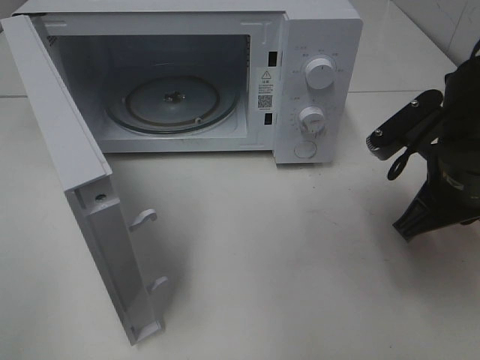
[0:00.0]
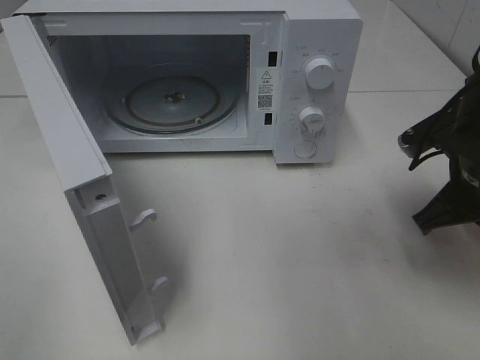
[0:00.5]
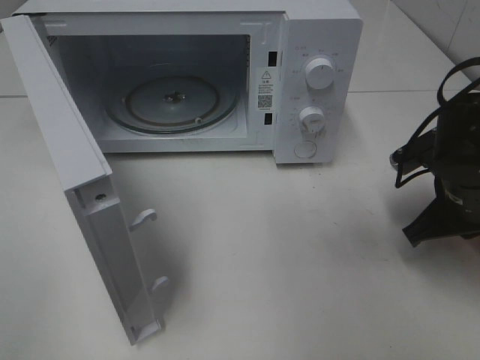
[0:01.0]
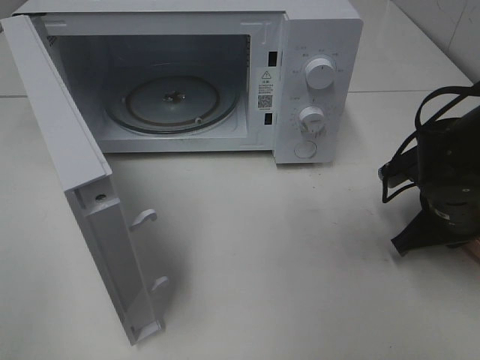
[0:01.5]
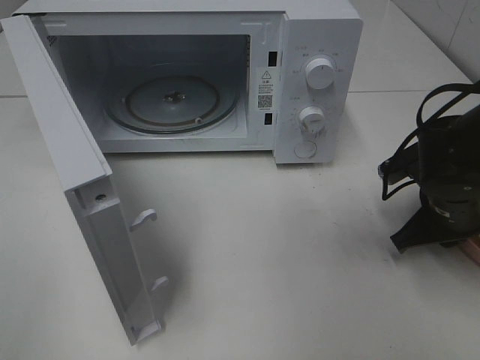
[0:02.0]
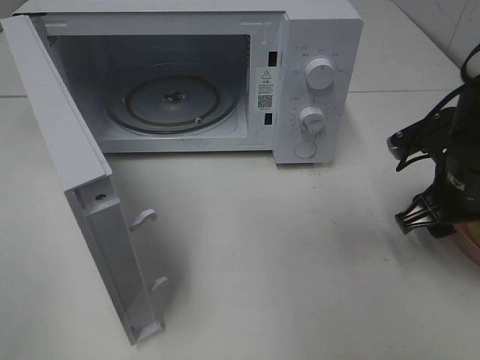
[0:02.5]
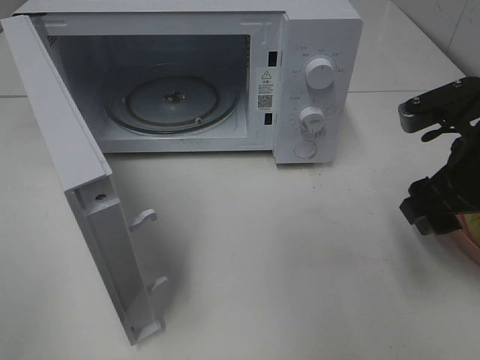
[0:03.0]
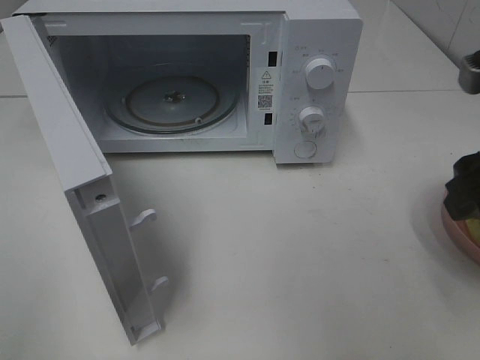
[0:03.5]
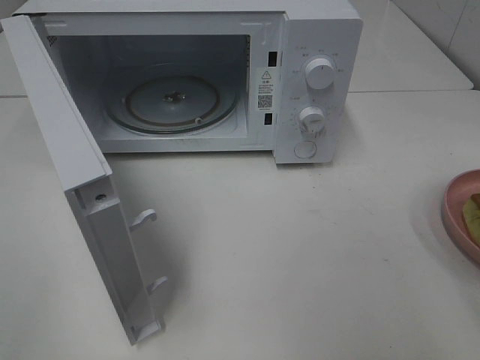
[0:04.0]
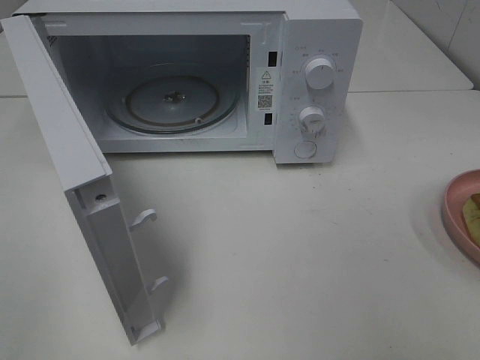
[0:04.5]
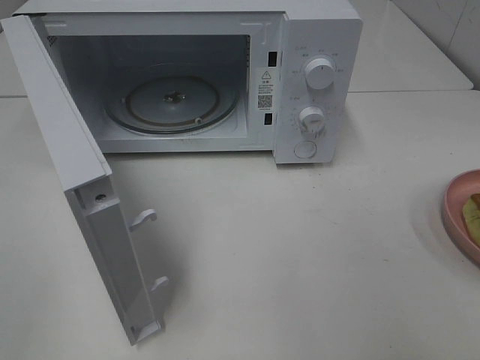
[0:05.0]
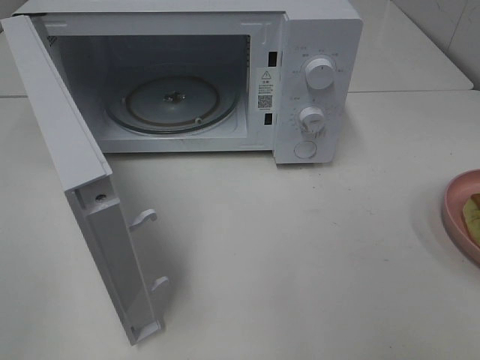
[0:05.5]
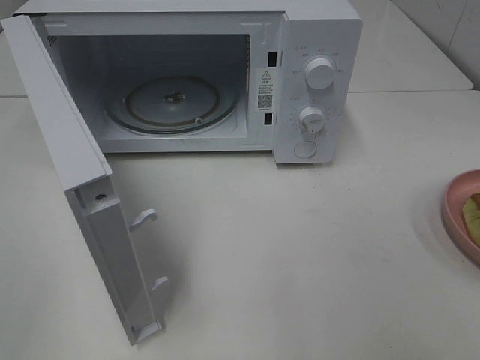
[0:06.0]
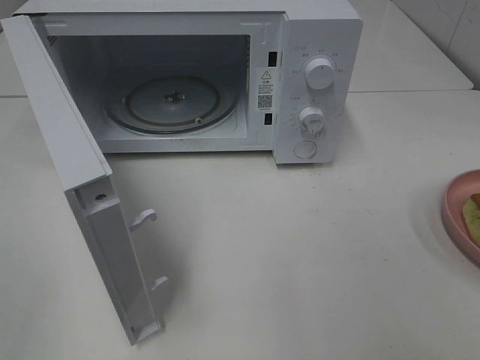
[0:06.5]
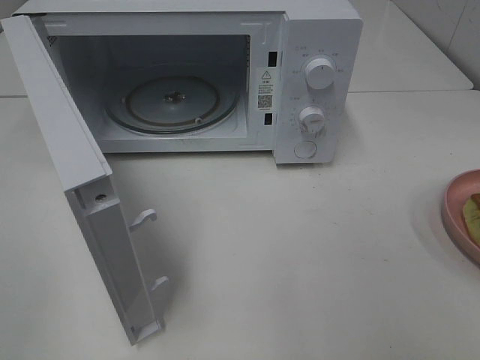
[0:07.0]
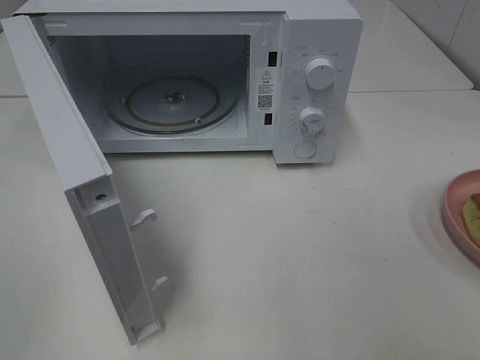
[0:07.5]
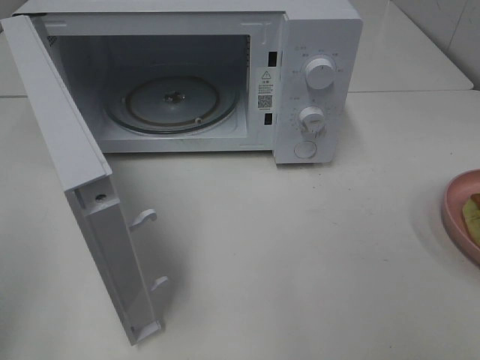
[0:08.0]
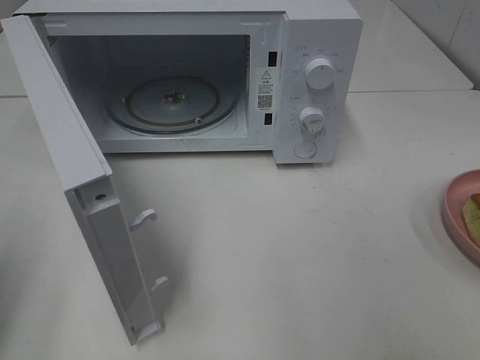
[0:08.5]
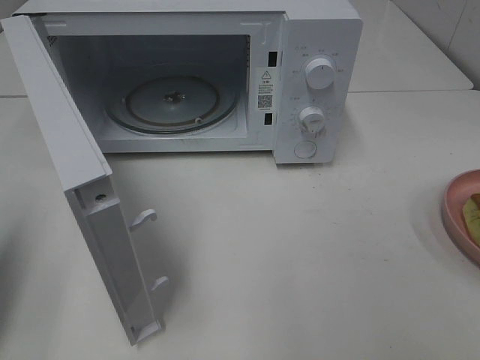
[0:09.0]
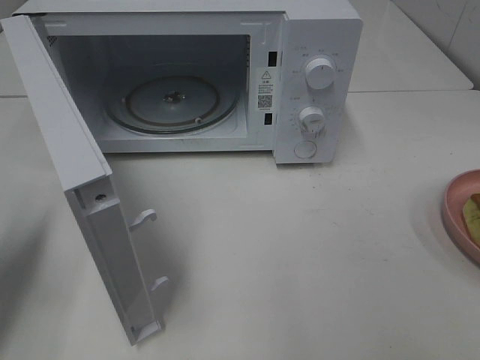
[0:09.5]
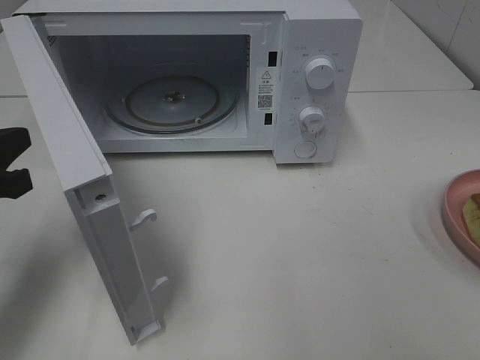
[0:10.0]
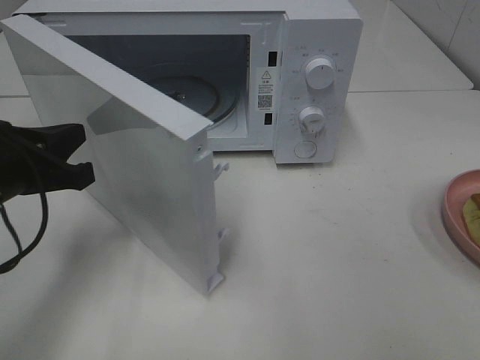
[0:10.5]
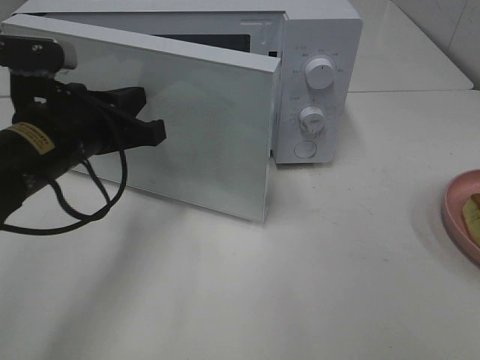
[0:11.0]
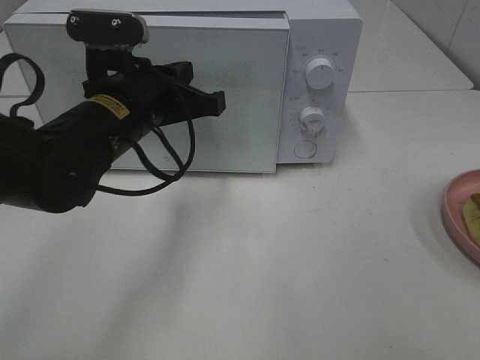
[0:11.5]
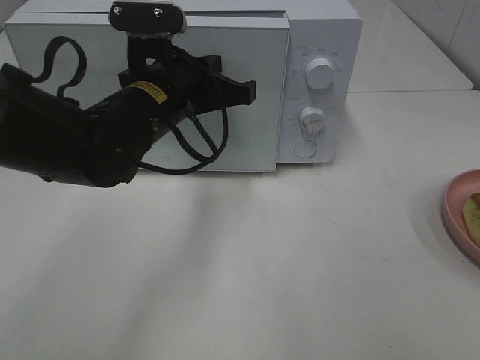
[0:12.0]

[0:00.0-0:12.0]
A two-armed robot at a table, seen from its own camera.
Task of the whole recording: Heat Sandwich.
Step, 0:00.0 to 0:03.5: Right hand: place the plate on the table.
0:00.0 to 0:02.0: The right gripper heads downward, covering some 10 cm.
0:02.0 to 0:04.0: The right gripper is displaced upward and backward by about 25 cm, and opens its fingers.
0:08.0 to 0:10.0: The left gripper shifts some 20 cm forward and downward.
0:10.0 to 0:12.0: The left gripper is displaced to the right and forward by approximately 20 cm.

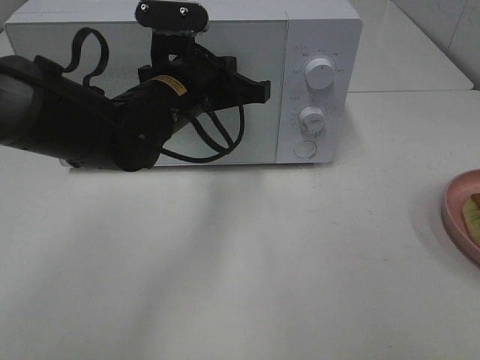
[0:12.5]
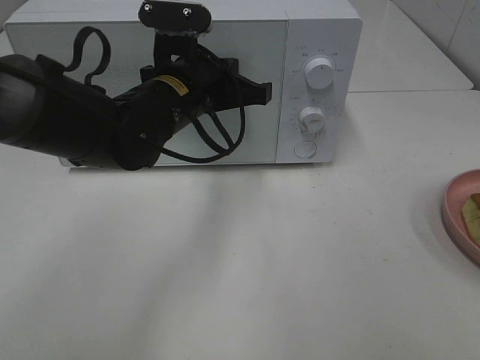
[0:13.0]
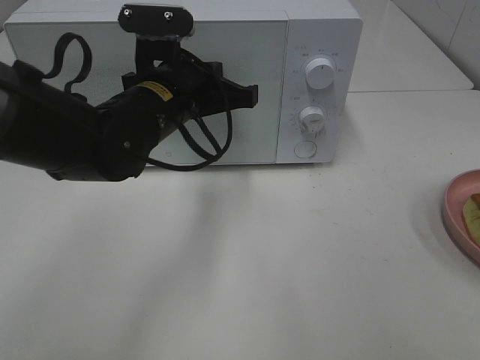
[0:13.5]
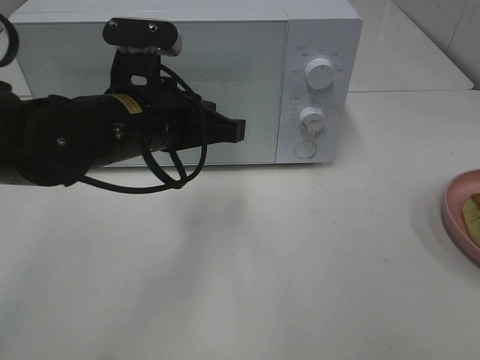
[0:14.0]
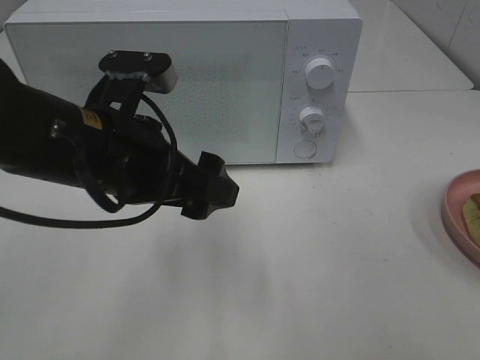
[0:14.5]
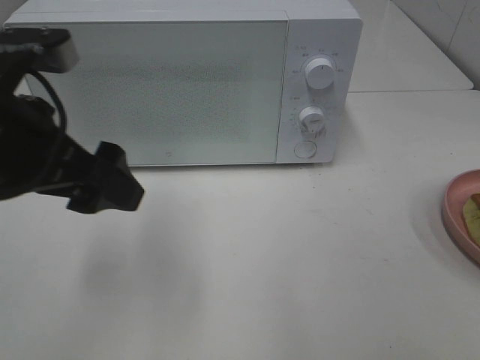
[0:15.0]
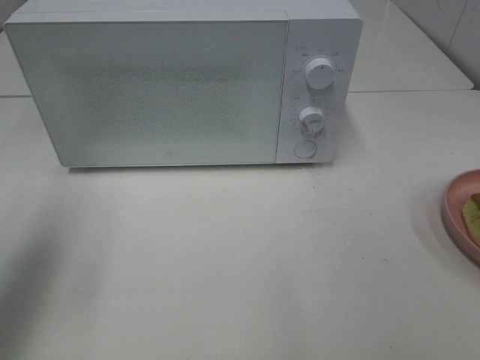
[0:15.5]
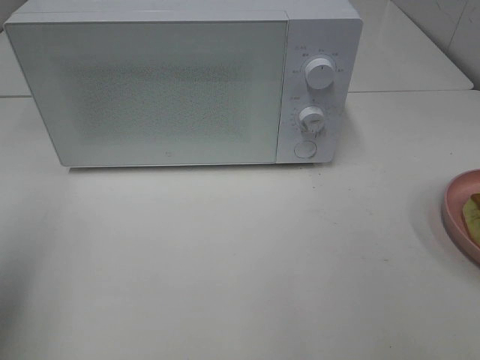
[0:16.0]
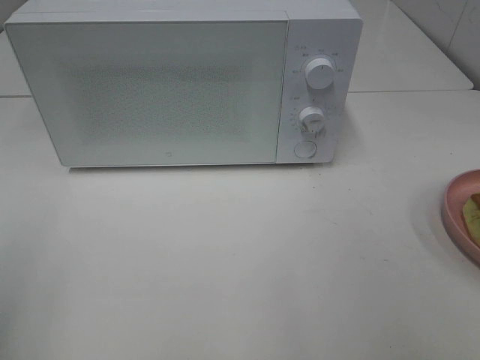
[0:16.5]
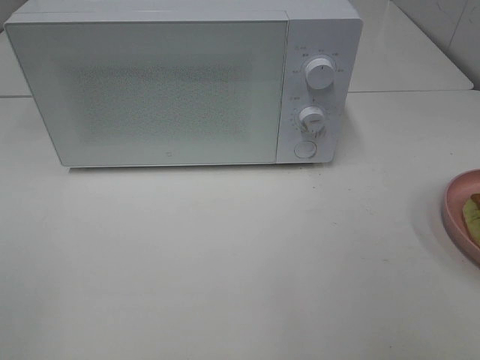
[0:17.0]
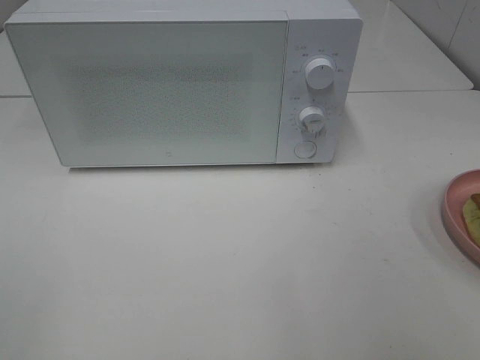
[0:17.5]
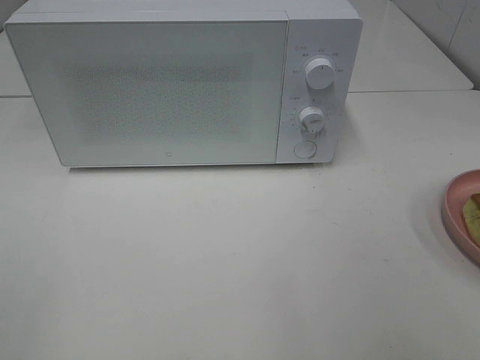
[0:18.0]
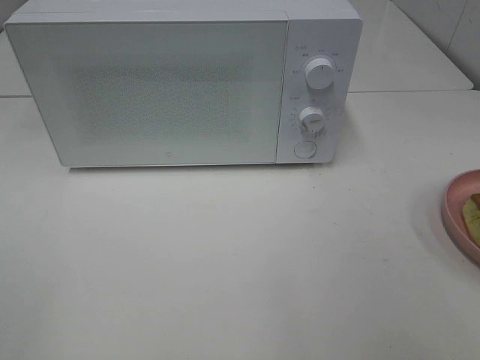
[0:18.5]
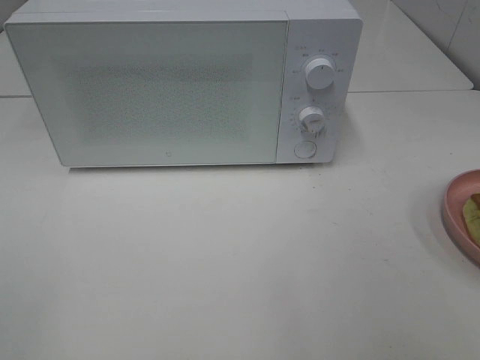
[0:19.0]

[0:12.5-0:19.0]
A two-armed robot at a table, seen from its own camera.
Task of the whole recording: Heat Sandwich.
0:12.5 to 0:14.5: The left gripper moves backward, about 10 cm, and opens up.
0:14.5 to 0:17.0: The left gripper moves to the left and backward, approximately 30 cm.
0:17.0 to 0:19.0: Neither gripper changes place.

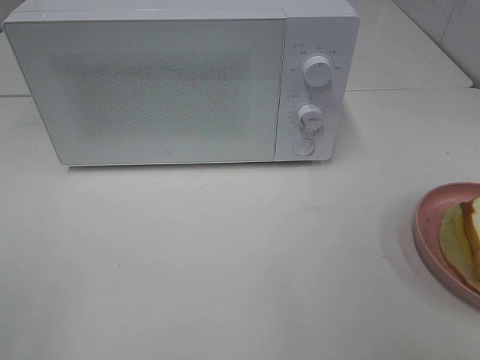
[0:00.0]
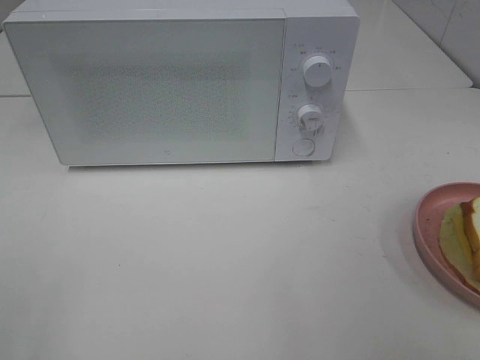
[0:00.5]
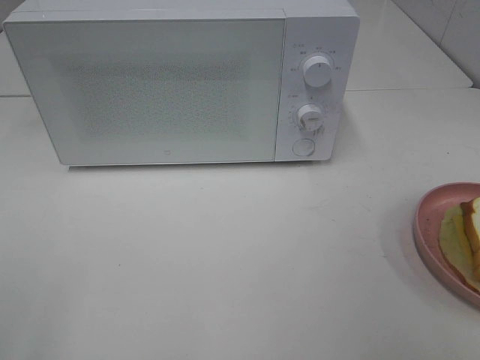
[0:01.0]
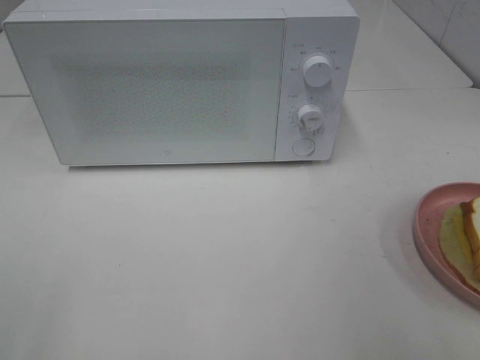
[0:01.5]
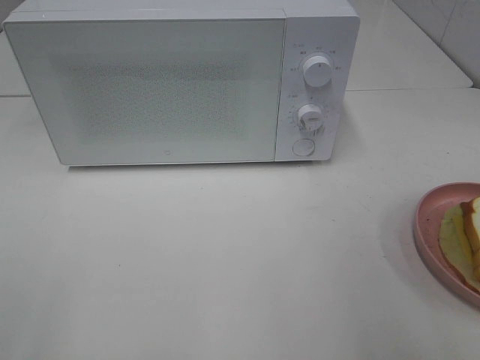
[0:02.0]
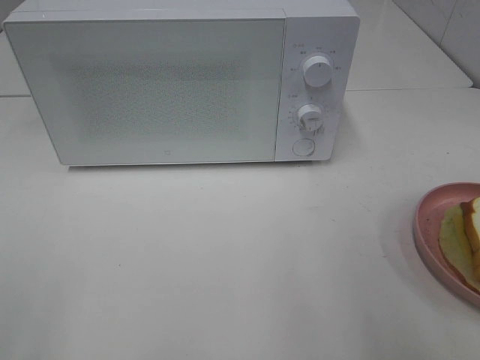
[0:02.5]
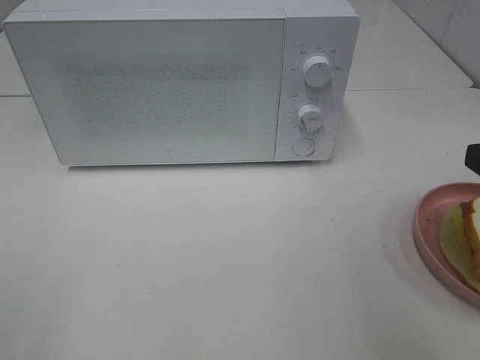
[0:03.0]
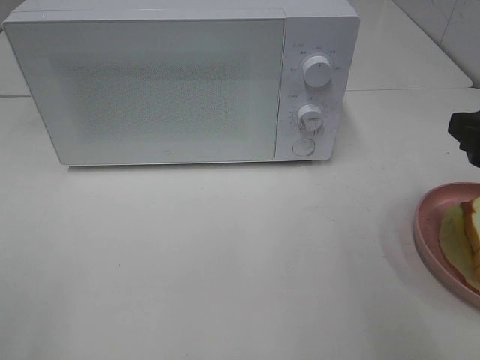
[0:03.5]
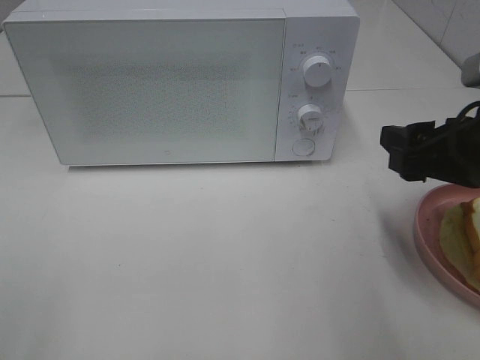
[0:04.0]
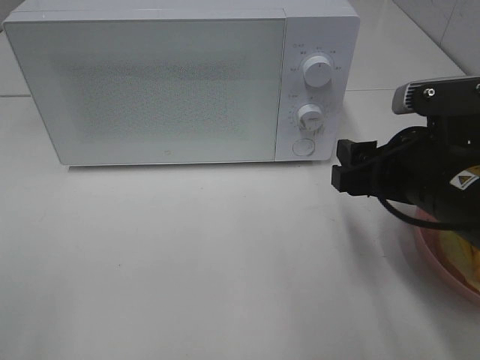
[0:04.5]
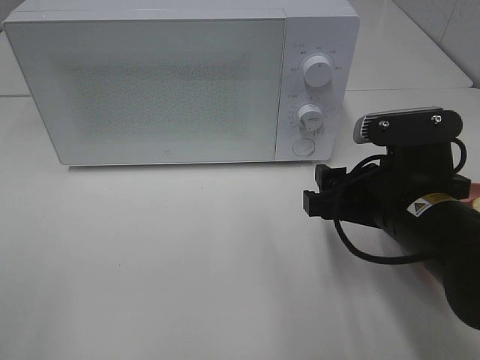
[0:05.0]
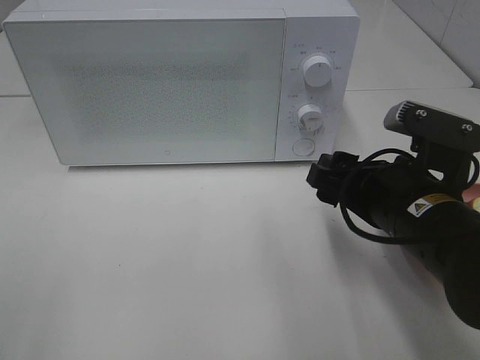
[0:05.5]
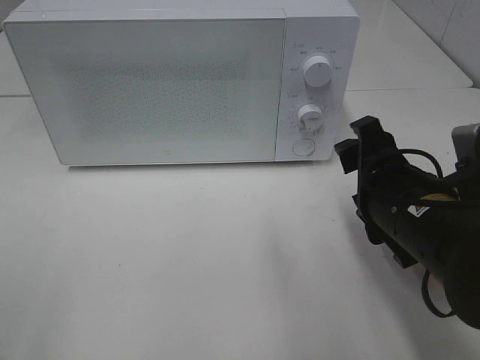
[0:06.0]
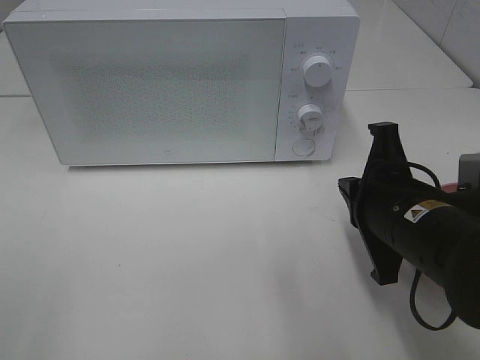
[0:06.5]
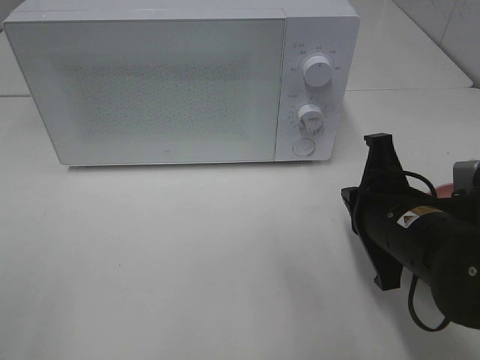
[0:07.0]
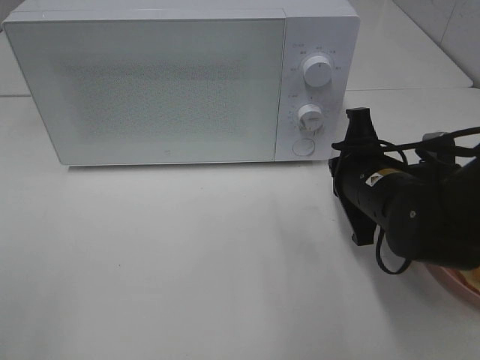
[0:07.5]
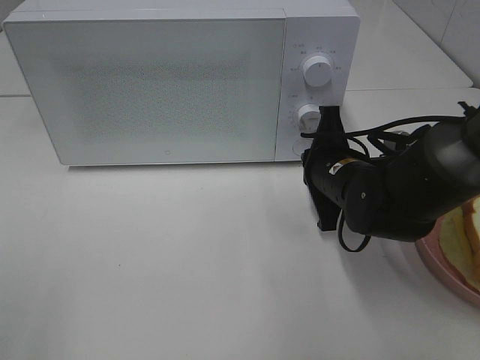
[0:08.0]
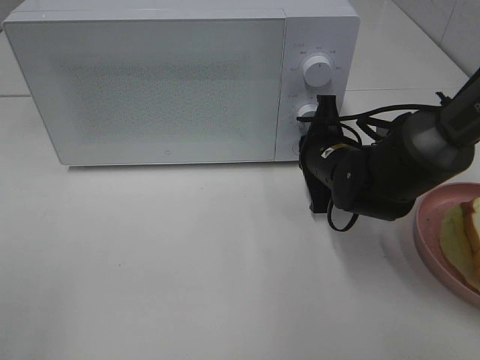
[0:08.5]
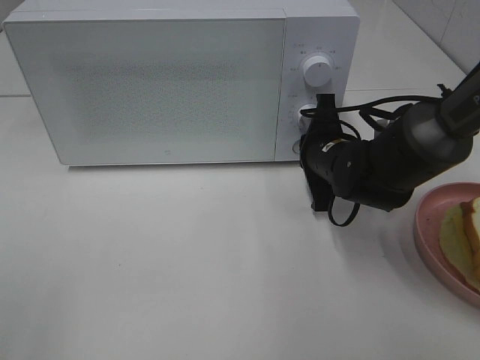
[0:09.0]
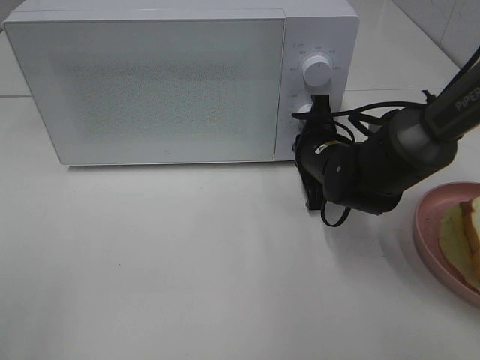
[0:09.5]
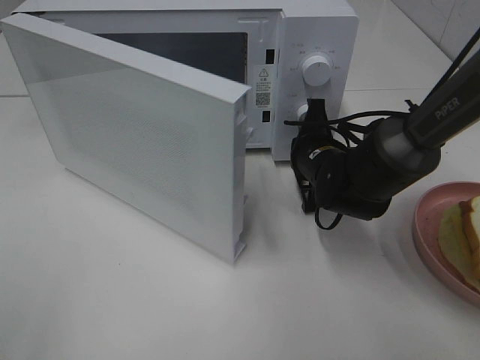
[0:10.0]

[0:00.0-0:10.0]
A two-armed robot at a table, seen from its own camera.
Task of the whole recording: Heat Sandwich.
0:02.0 to 0:04.0: The right gripper heads forward, downward and to the left, covering roughly 15 cm.
0:04.0 to 0:06.0: The right gripper goes about 10 cm to the left and downward.
0:06.0 to 0:08.0: The right gripper shifts some 10 cm forward and downward, and closes its fingers.
0:08.0 to 0:10.0: The right gripper moves forward, about 5 cm.
